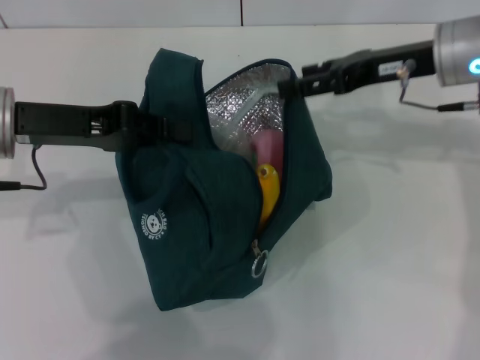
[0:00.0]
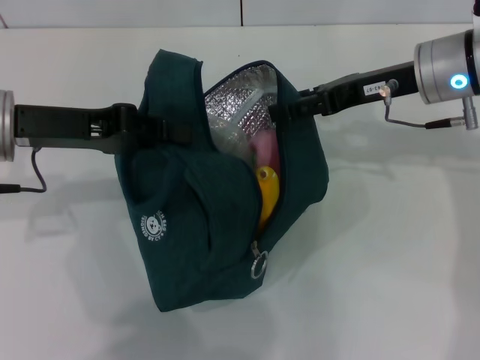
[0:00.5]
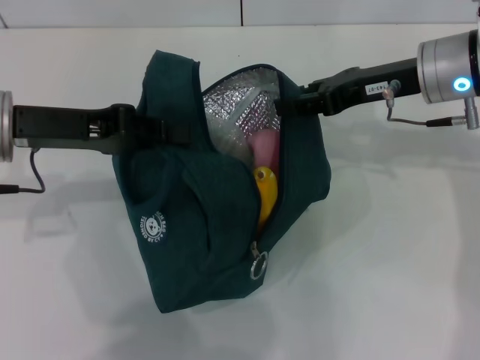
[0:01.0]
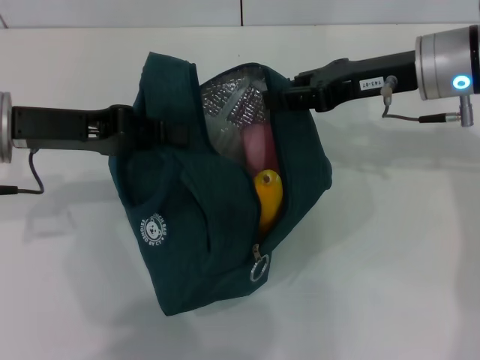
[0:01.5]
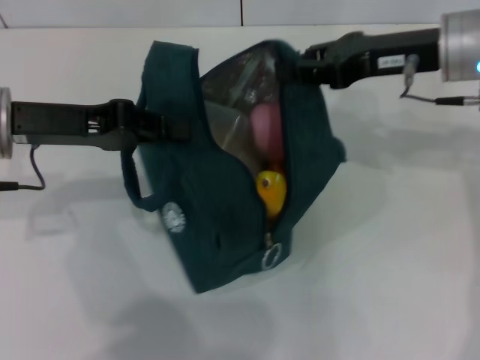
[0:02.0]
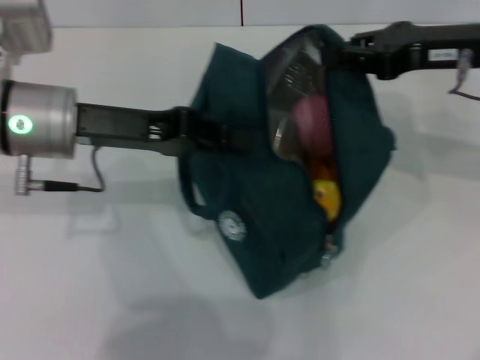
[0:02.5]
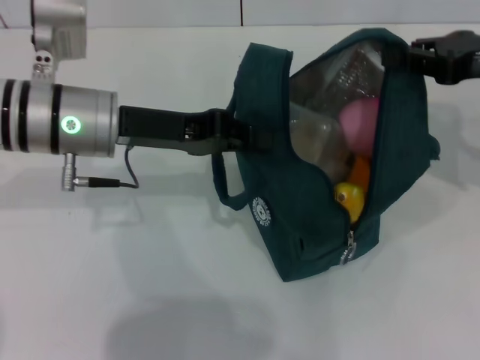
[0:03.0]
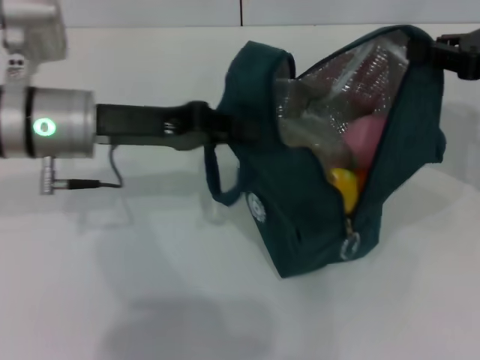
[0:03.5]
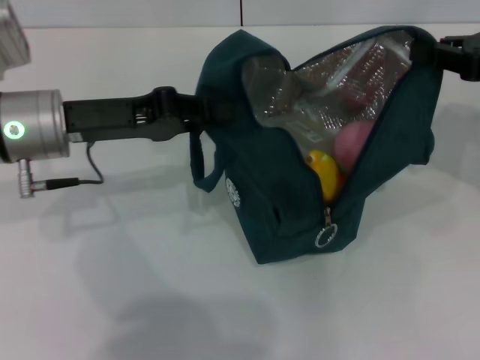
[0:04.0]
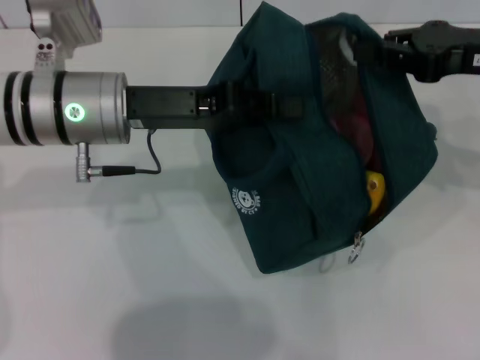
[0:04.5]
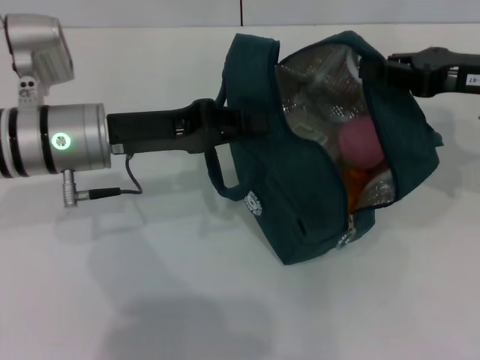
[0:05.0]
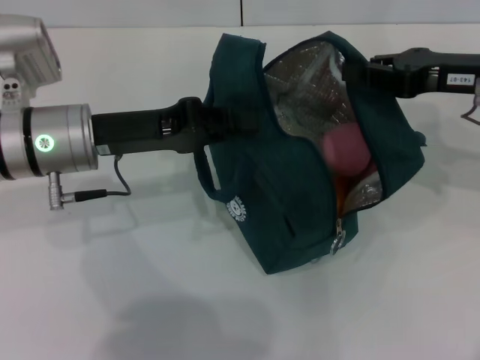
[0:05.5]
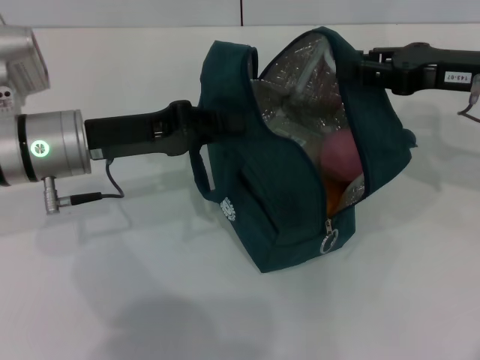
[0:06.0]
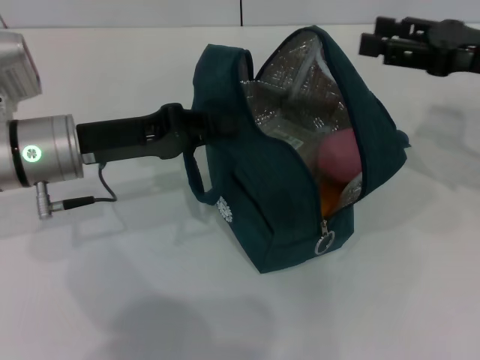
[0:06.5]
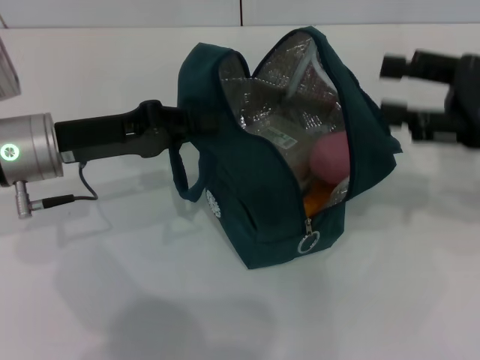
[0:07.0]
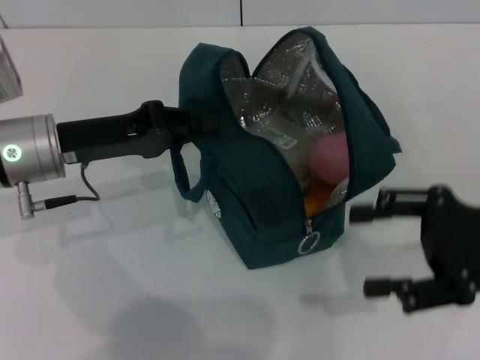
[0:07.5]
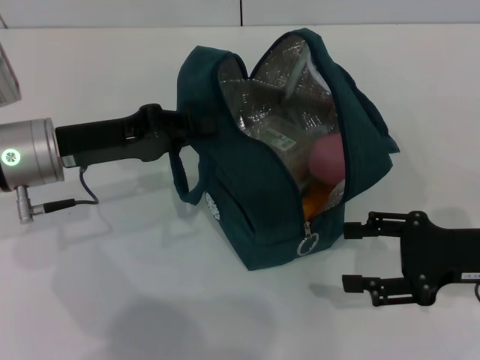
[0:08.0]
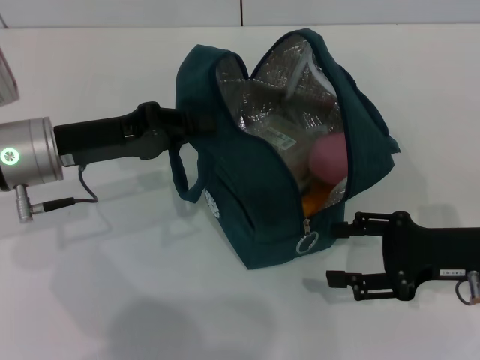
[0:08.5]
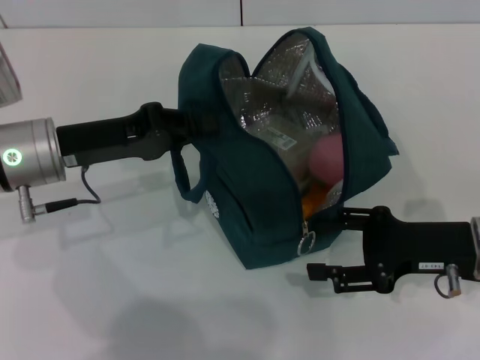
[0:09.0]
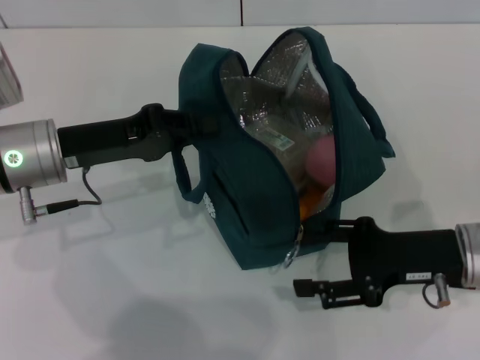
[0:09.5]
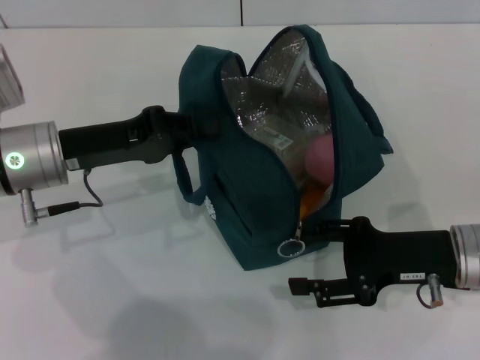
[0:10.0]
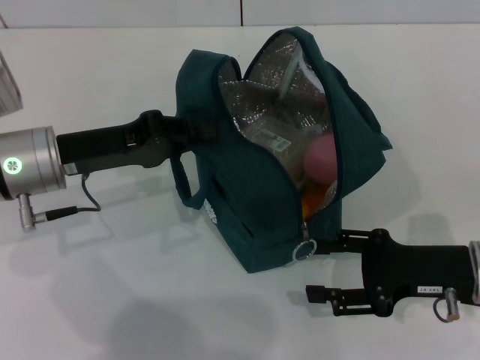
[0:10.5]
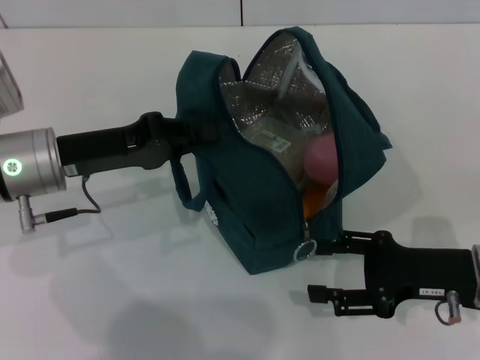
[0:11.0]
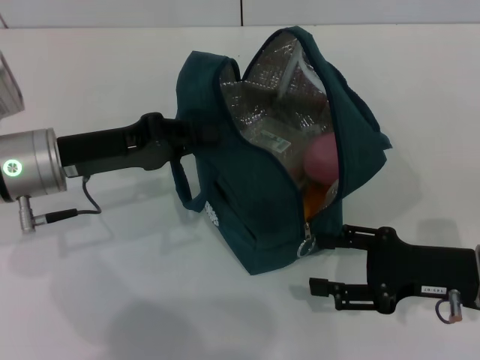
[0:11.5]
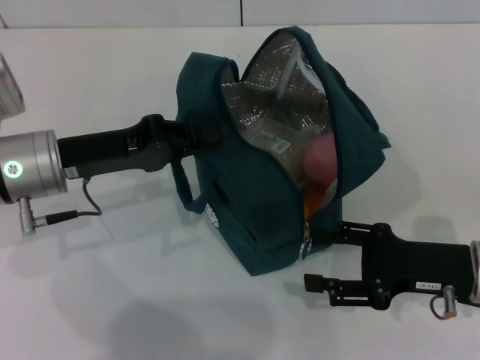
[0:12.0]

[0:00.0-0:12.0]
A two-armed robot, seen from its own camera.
Step, 0:00.0 to 0:06.0: Hold the lunch bag with your right hand.
0:00.0 to 0:02.0: The right gripper closes.
0:02.0 to 0:04.0: The right gripper moves to the right, about 10 cm.
0:04.0 to 0:06.0: The right gripper shifts roughly 5 cm to the left.
0:06.0 to 0:08.0: The right gripper goes some 15 cm backward and downward, and opens.
0:08.0 to 0:10.0: The right gripper changes place by some 5 cm.
0:10.0 to 0:12.0: The grippers make only small movements.

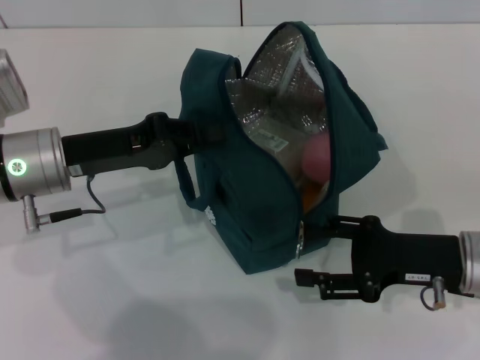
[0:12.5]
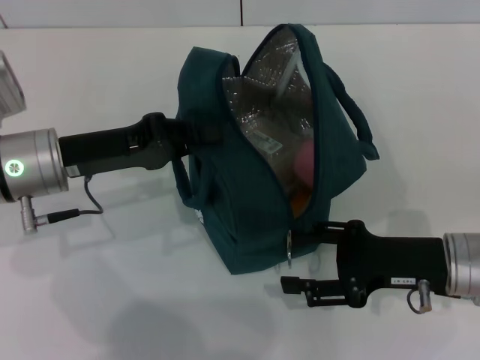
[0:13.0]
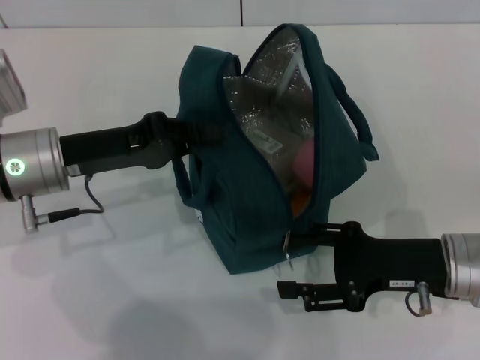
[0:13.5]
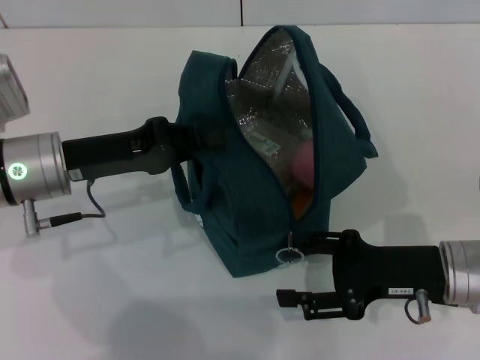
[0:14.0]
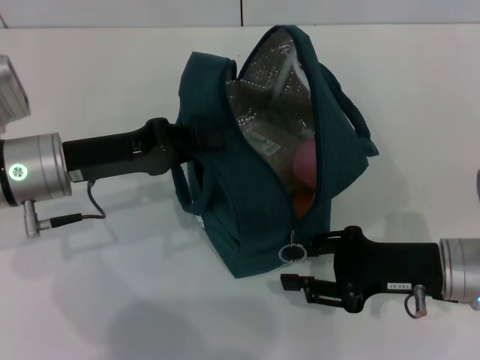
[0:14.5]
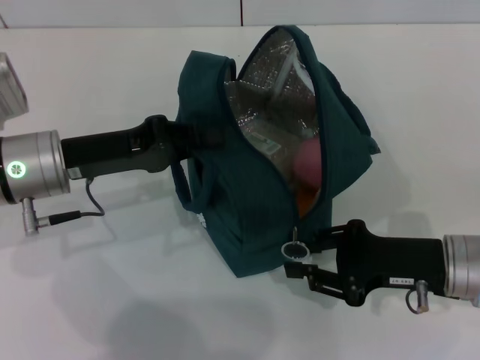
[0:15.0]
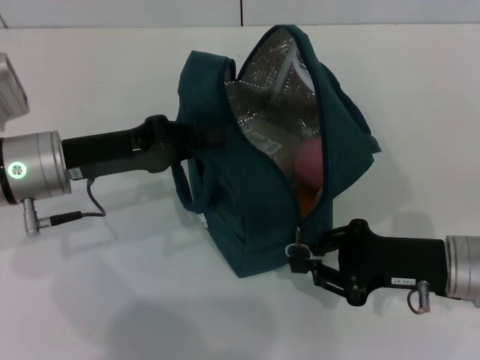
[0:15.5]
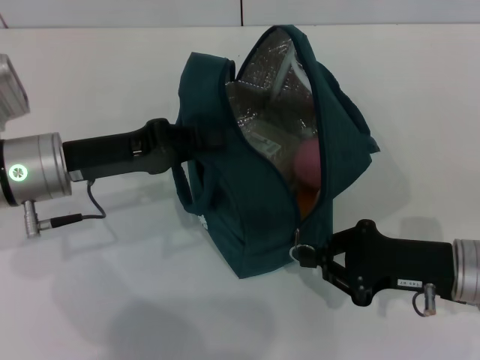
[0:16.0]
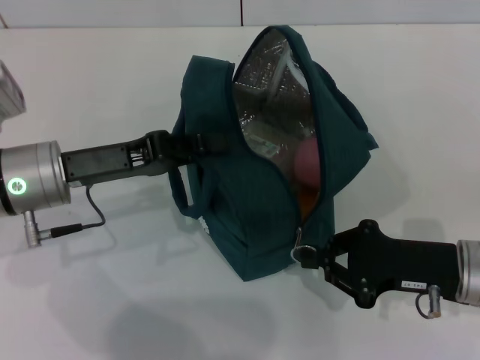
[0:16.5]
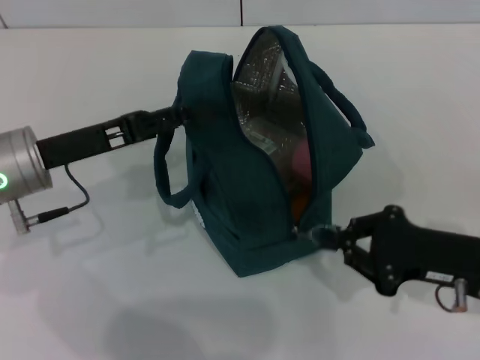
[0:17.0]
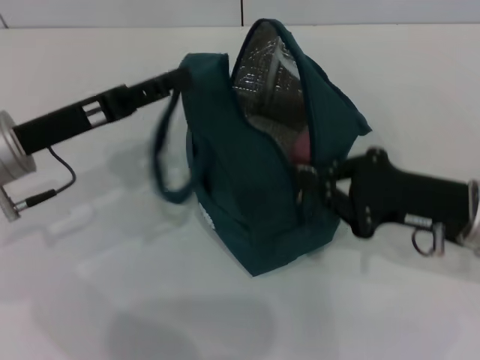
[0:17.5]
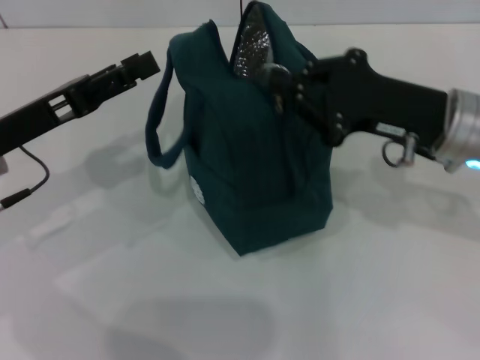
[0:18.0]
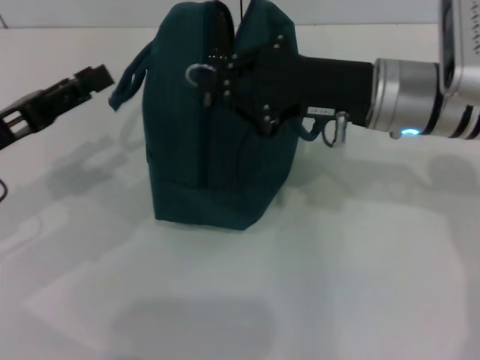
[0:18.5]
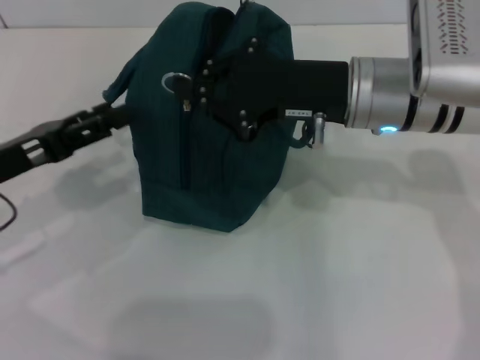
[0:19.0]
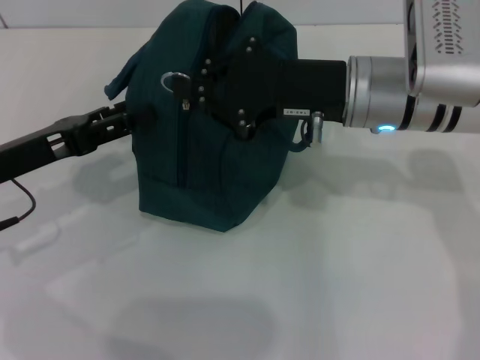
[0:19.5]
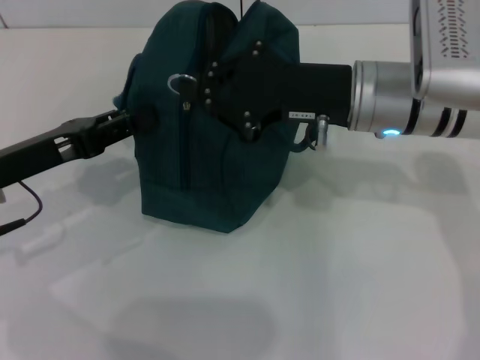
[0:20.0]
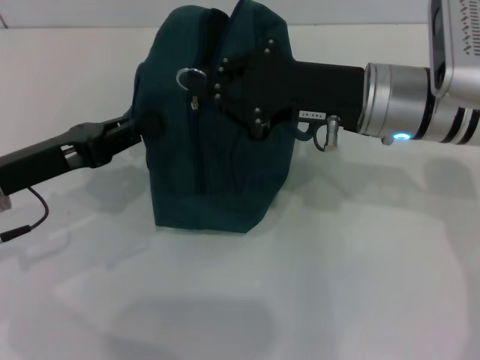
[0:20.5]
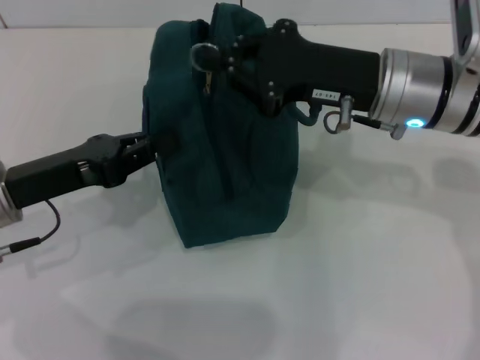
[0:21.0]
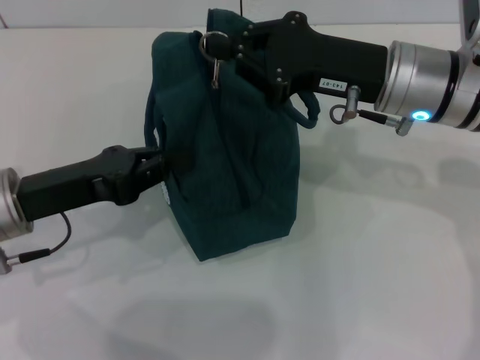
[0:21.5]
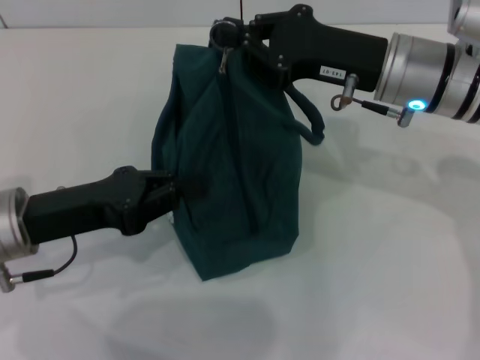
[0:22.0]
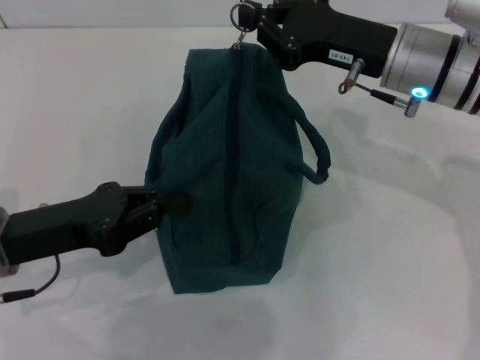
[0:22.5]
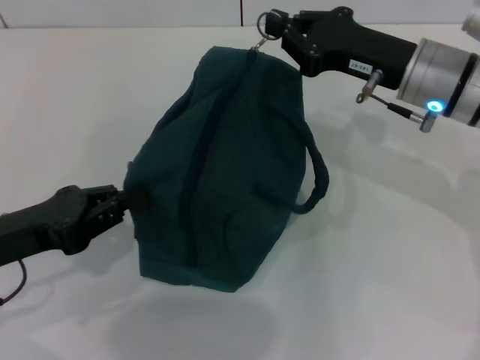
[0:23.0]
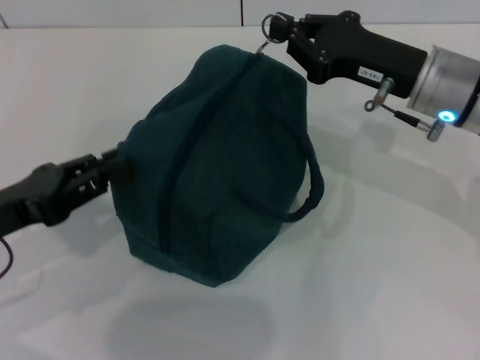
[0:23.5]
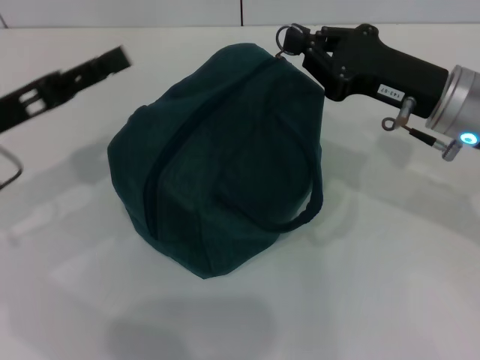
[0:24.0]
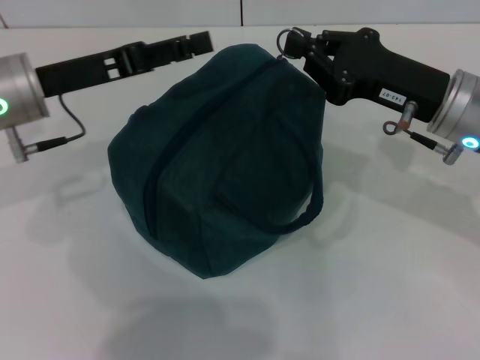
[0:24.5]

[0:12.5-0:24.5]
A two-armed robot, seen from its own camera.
Step, 0:12.5 to 0:17.5: Hold the lunch bag with your left hand.
0:12.5 to 0:14.5: The grippers stay close to where they were, moving slightly.
0:14.5 to 0:16.5: The right gripper closes up.
0:16.5 to 0:18.5: The left gripper travels to the left by approximately 10 cm, and opens its fingers. The right gripper shifts approximately 20 cm upward, forward and to the left.
0:18.5 to 0:20.5: The left gripper closes up.
0:22.5 to 0:24.5: The right gripper moves approximately 5 cm, while the left gripper shifts approximately 10 cm forward and upward, and opens.

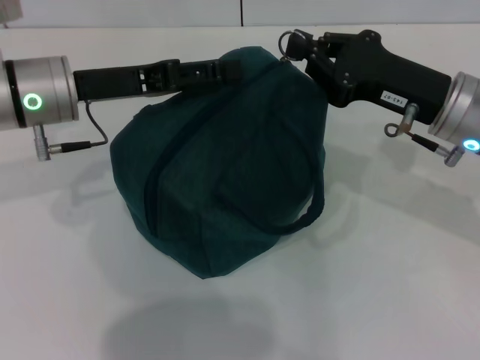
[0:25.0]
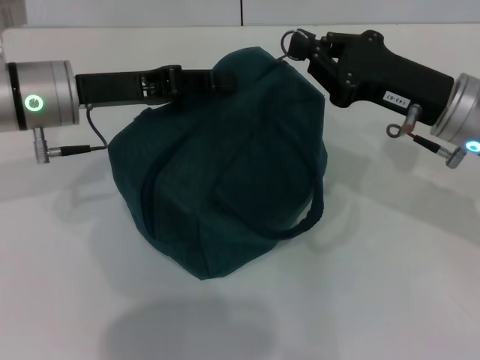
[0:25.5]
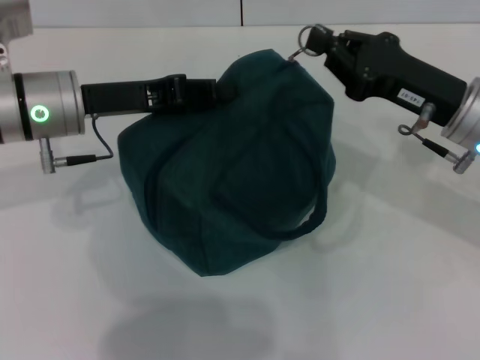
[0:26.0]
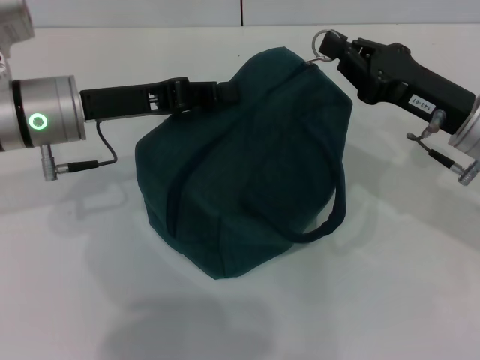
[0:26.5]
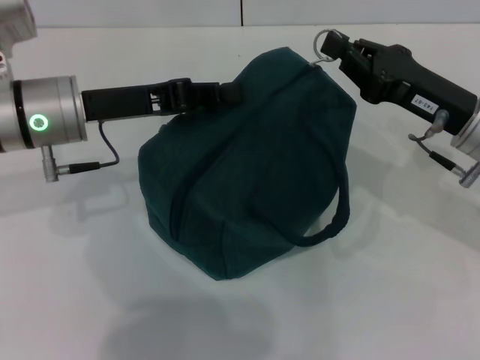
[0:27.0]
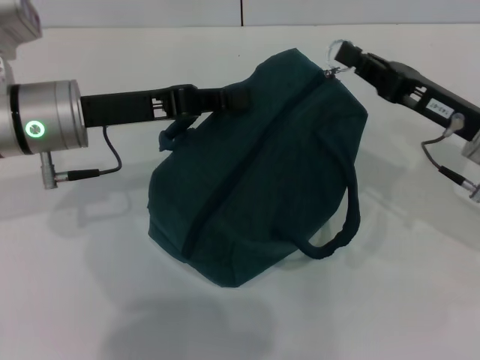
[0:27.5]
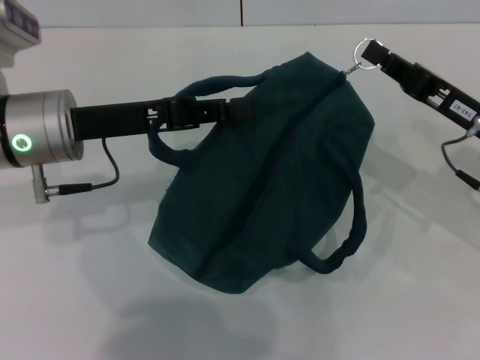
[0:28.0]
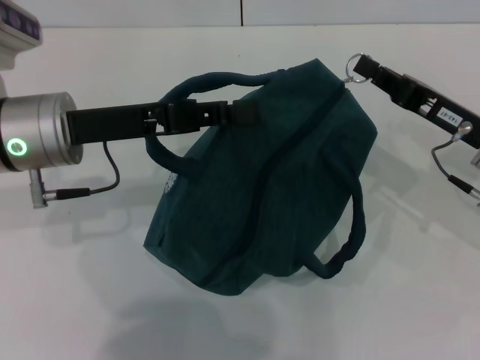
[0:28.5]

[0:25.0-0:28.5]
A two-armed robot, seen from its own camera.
0:25.0 to 0:27.0: The left gripper closes up.
